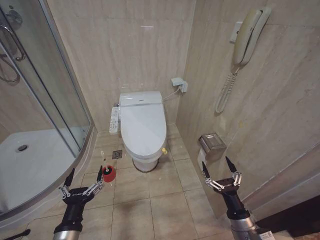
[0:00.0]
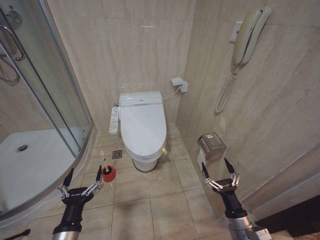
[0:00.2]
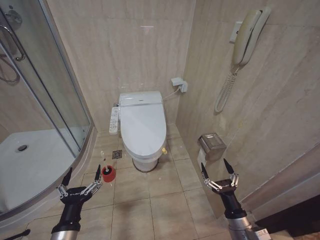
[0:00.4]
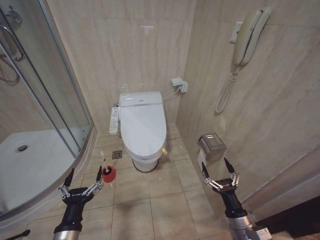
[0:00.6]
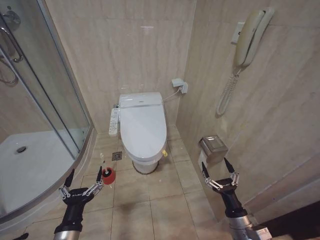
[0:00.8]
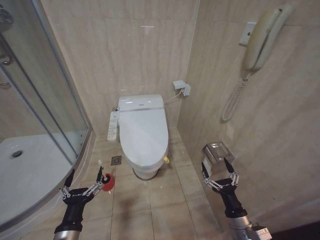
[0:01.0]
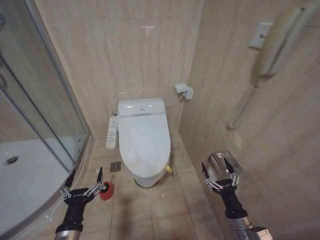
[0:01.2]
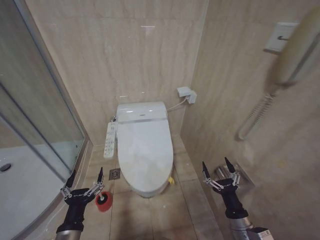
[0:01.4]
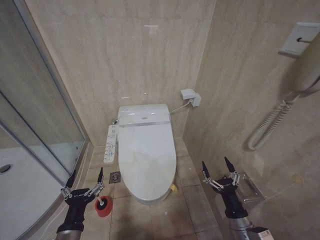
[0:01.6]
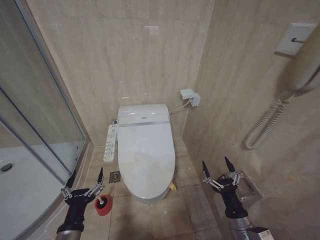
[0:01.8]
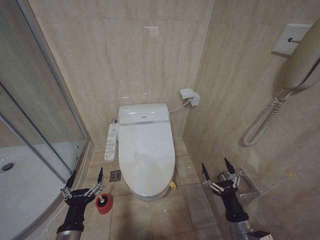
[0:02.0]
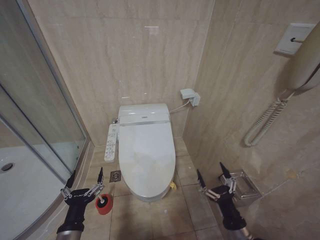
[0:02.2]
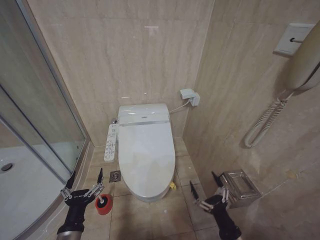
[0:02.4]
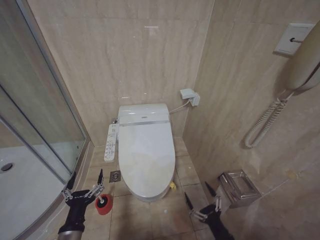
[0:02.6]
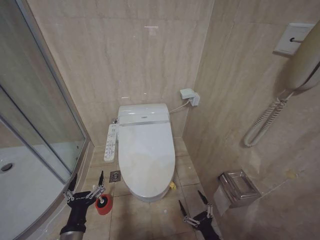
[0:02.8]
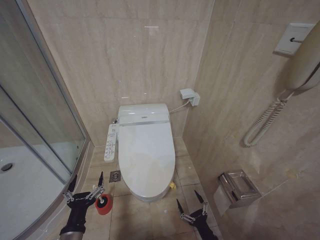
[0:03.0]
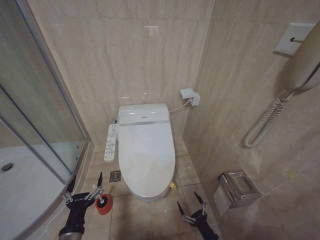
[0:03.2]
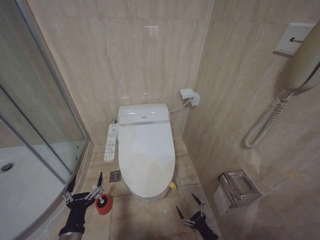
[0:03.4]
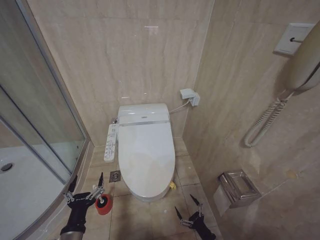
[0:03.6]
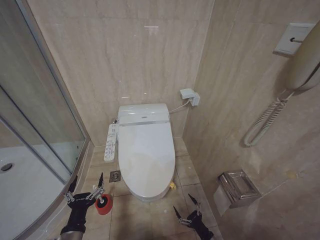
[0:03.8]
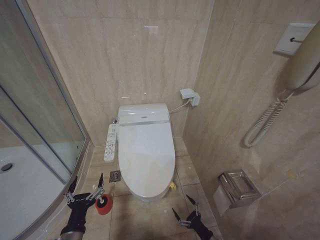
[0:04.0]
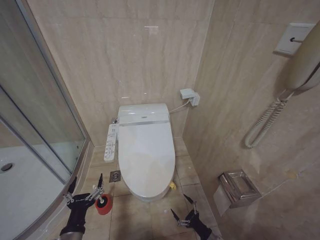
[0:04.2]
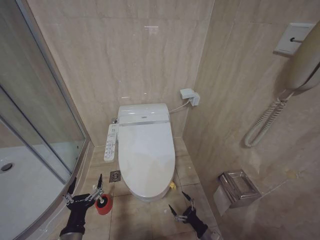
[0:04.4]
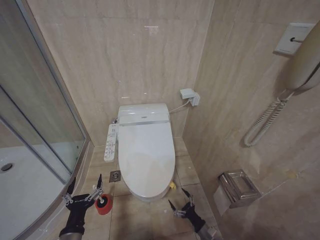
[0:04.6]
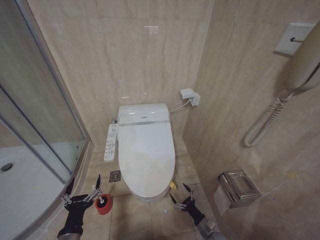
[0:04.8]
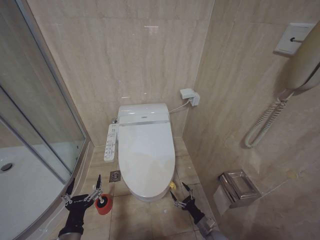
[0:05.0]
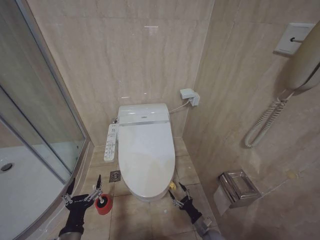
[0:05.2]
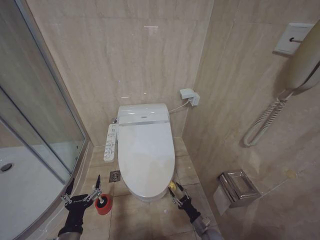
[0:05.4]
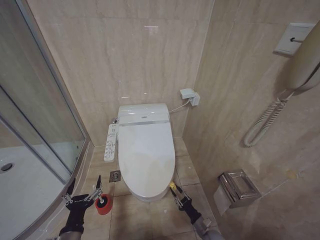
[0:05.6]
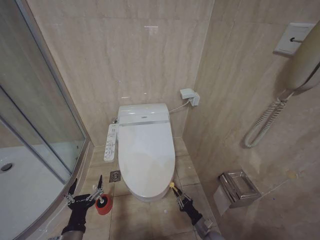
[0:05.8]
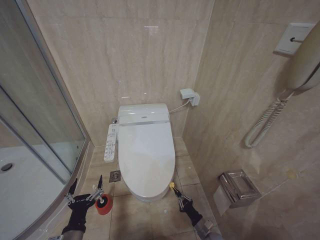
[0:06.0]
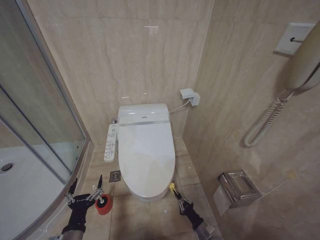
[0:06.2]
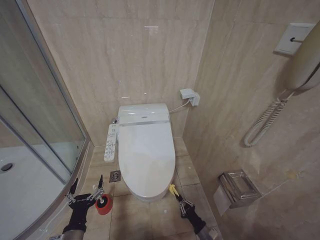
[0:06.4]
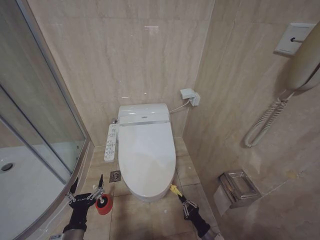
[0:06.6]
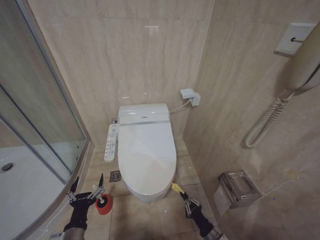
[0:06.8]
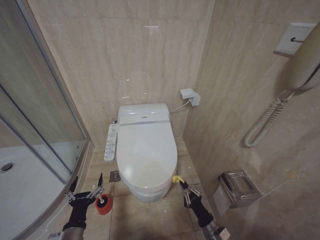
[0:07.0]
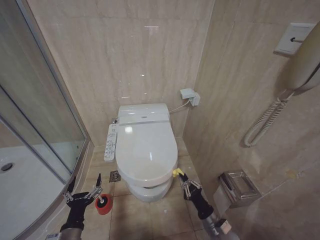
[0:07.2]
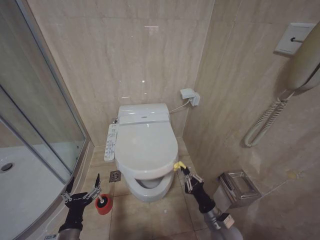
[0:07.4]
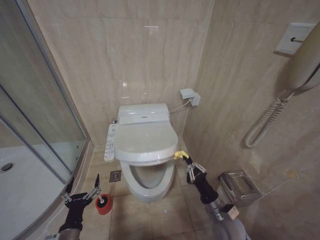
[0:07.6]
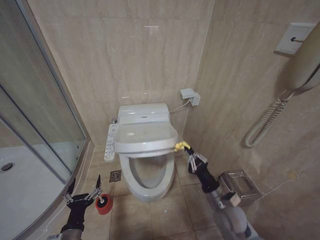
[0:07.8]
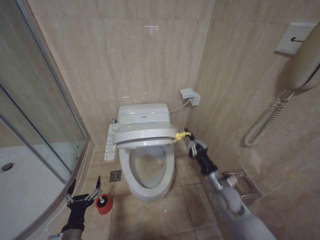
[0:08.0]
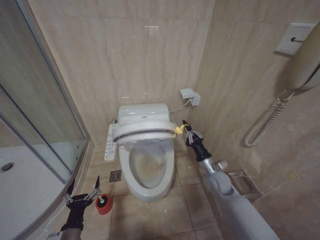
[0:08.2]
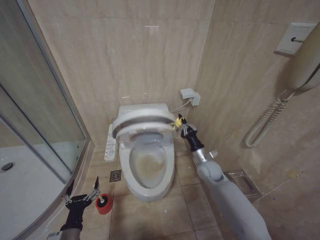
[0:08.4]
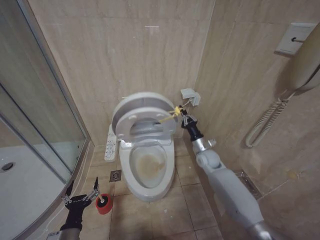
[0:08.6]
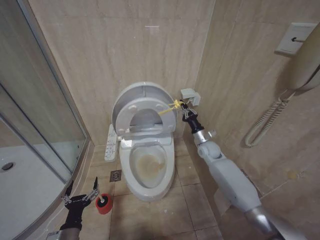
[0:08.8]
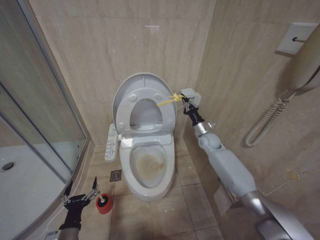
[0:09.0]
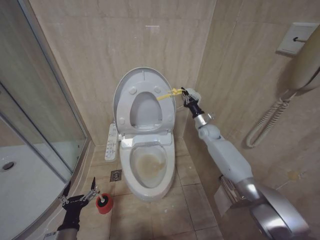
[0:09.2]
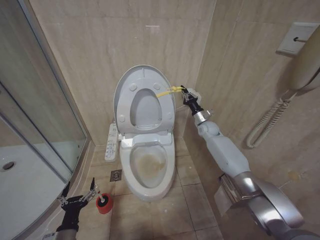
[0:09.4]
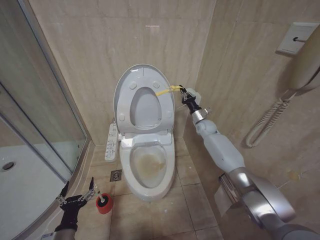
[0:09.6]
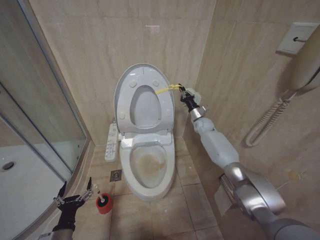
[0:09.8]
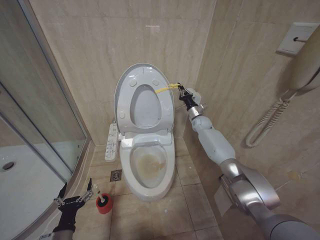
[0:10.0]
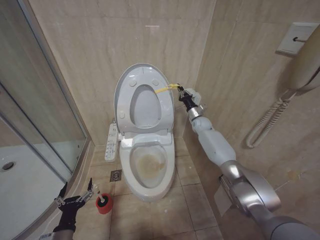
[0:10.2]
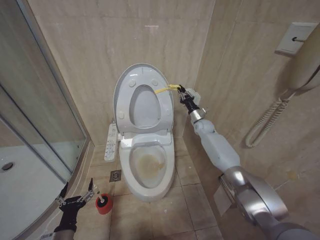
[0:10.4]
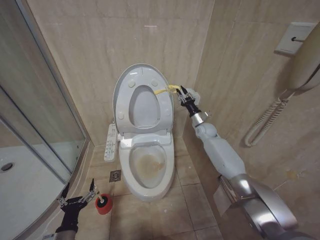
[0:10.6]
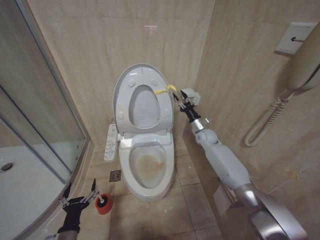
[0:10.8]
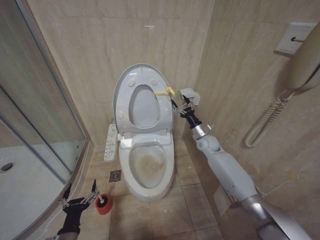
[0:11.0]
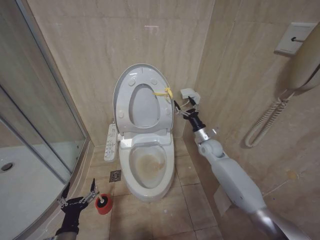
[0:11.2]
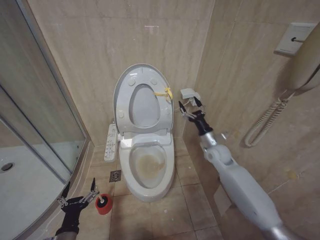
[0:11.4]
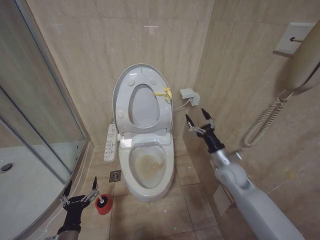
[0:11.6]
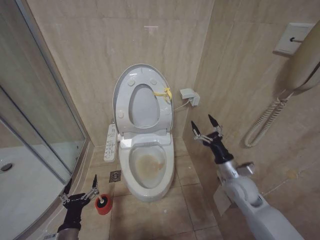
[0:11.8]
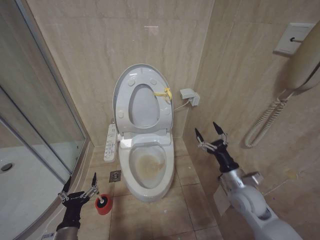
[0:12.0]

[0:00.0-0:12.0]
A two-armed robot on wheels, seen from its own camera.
Task of the whole recording: Open the toilet lid, clean the toilet bowl with a toilet brush, close the toilet lid, and flush.
0:01.6 to 0:03.0: The right gripper goes roughly 15 cm downward.
0:03.0 to 0:04.4: The right gripper heads downward and forward, covering approximately 10 cm.
0:06.0 to 0:07.6: The right gripper shifts roughly 25 cm upward.
0:07.6 to 0:09.0: The right gripper goes roughly 30 cm forward and upward.
0:09.0 to 0:10.4: The right gripper moves forward, some 10 cm.
0:10.4 to 0:12.0: The right gripper travels backward by approximately 35 cm, and opens its fingers.

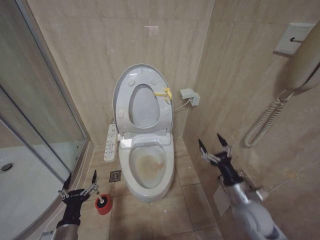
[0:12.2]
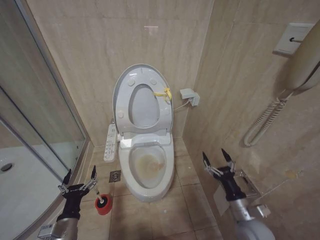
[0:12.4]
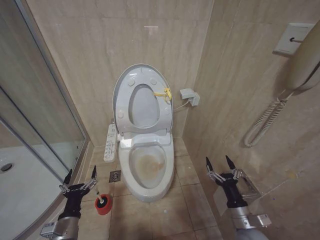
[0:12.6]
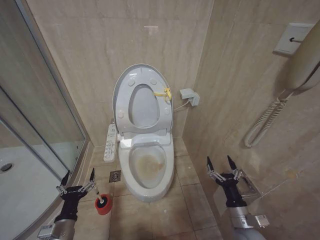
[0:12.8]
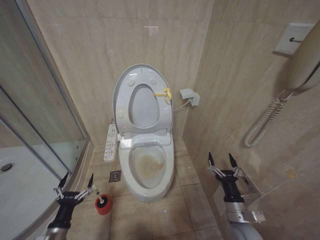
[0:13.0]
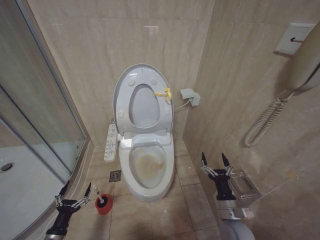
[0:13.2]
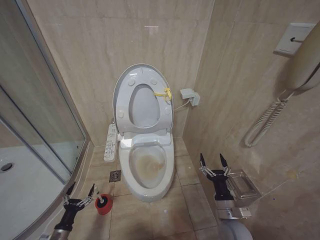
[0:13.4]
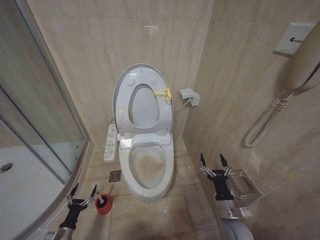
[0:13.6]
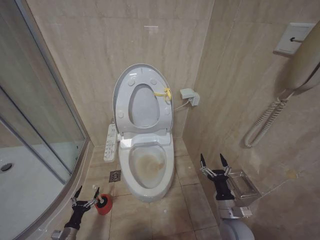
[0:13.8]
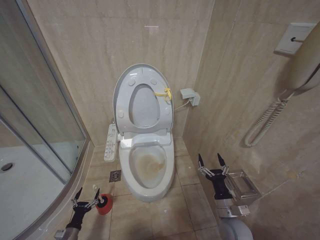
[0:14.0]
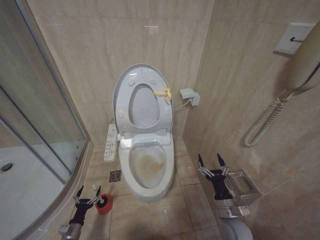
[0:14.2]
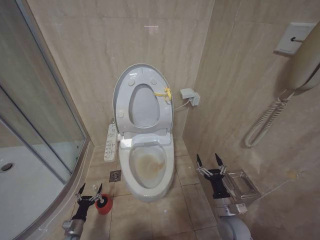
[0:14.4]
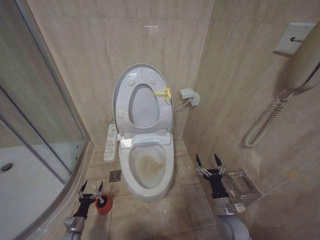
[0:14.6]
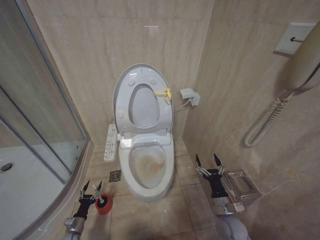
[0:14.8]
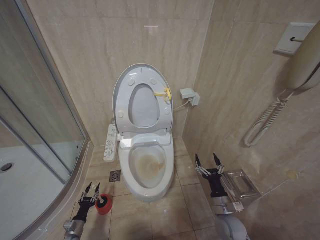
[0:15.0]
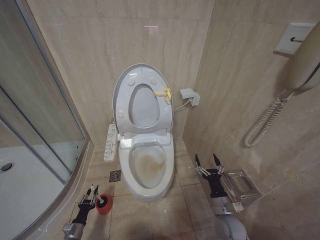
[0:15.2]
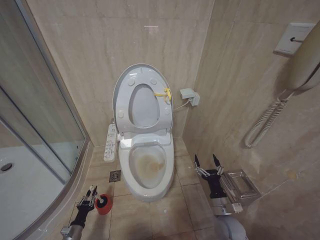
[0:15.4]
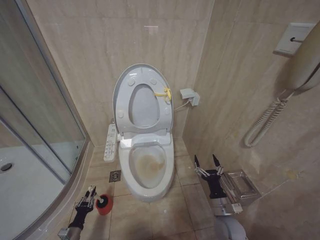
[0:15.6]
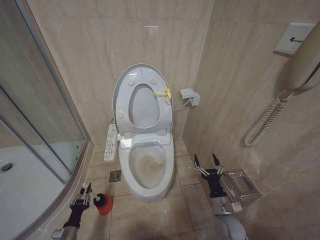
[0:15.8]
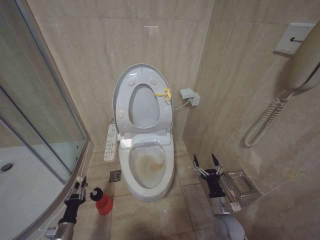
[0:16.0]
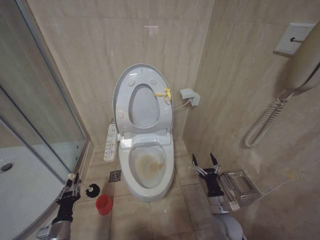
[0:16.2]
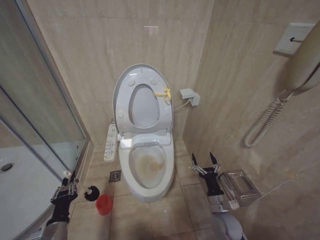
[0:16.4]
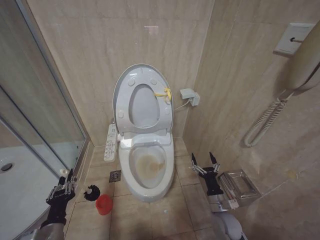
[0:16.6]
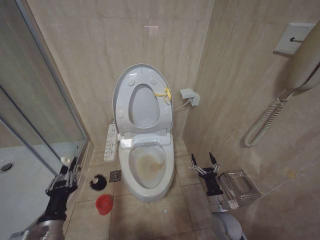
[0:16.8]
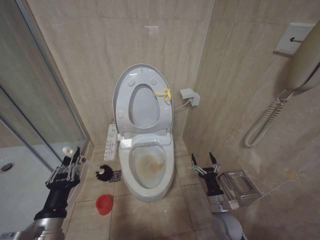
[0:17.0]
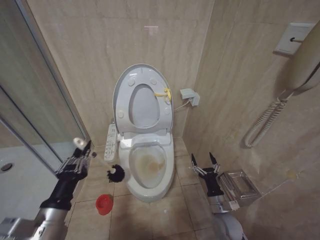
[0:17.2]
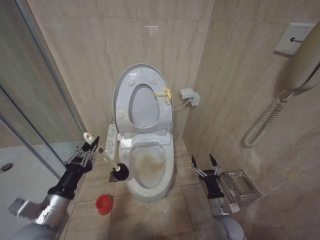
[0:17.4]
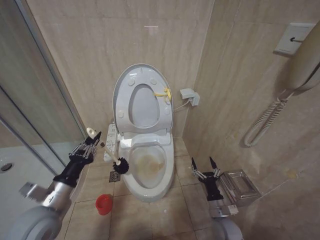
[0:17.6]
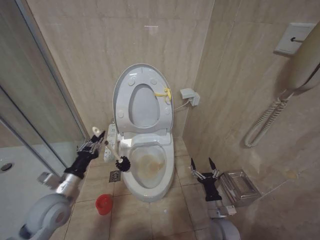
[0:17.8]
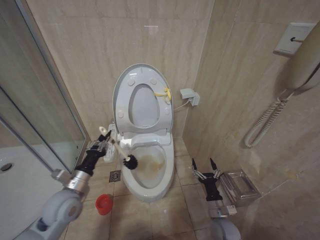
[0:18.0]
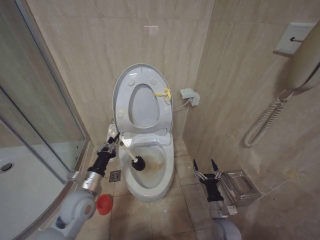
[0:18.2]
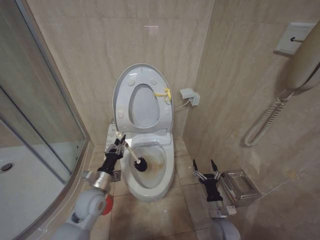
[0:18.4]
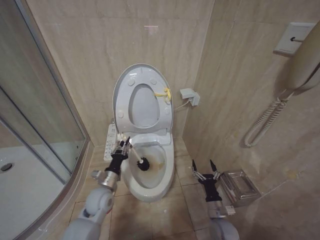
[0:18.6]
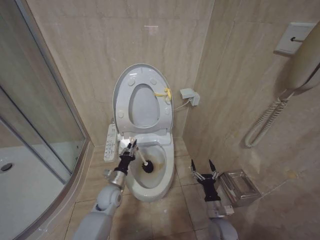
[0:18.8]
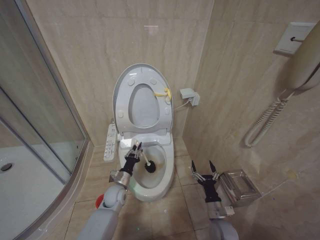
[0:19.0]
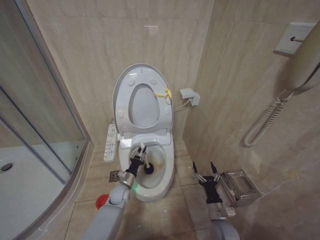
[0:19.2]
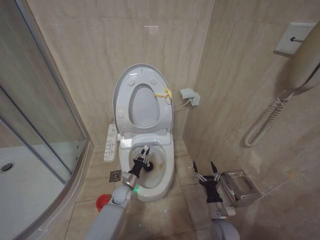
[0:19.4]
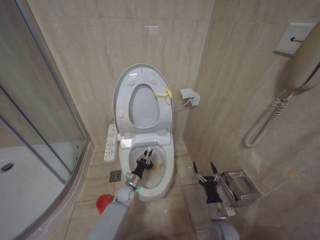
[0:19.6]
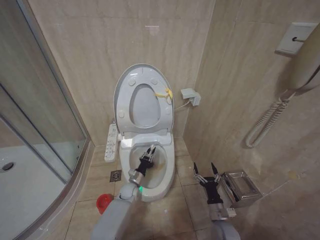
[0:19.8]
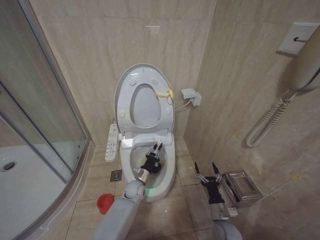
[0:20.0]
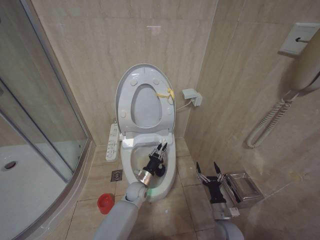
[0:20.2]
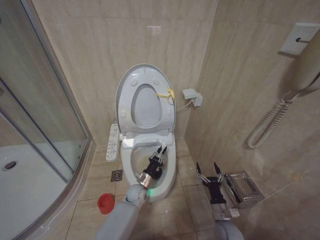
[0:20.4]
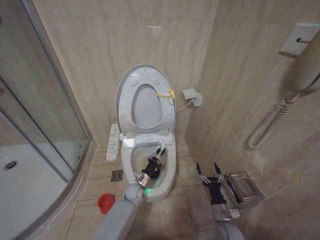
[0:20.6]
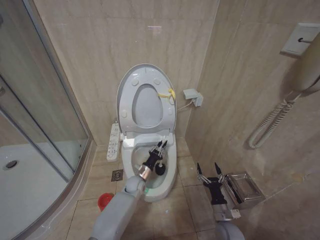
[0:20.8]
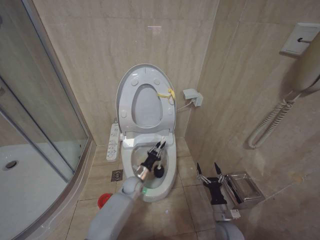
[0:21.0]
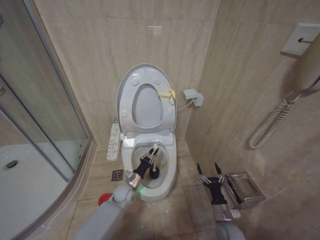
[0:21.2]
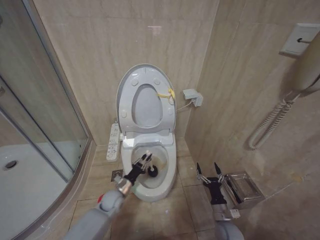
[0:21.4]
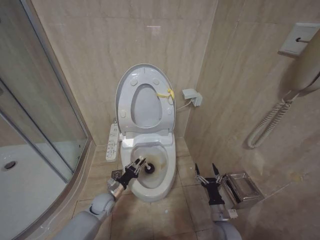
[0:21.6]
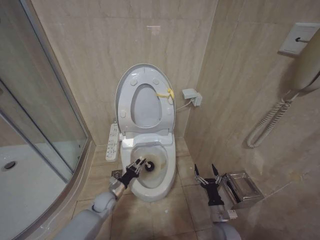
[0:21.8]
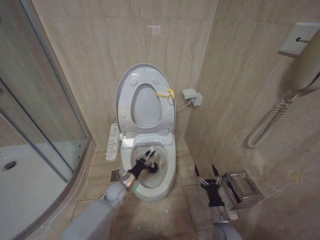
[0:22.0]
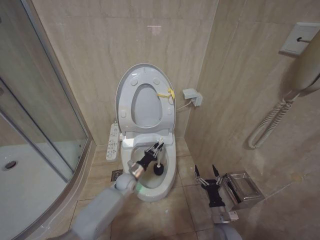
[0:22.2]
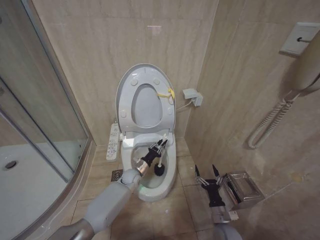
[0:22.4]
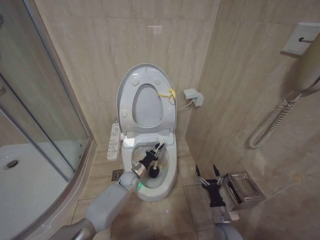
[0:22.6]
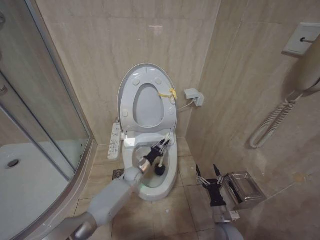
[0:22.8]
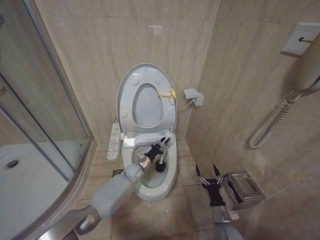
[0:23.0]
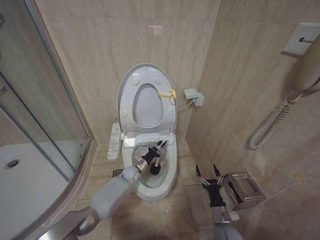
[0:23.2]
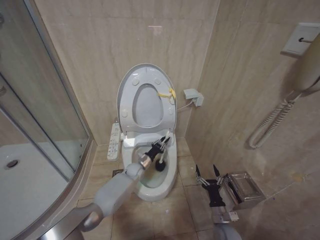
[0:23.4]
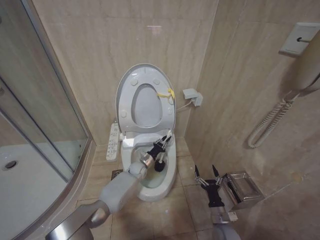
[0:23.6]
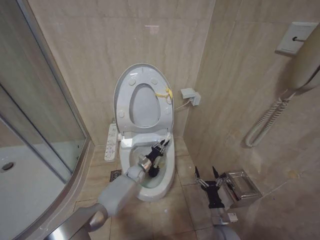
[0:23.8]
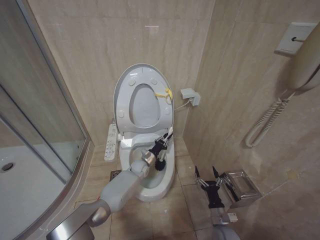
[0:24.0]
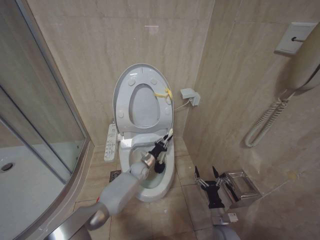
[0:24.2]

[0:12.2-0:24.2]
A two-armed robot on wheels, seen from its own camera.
Task of the whole recording: Open the toilet lid, clean the toilet bowl with a toilet brush, close the toilet lid, and flush.
0:12.2 to 0:13.8: The left gripper is displaced downward and to the left by about 25 cm, while the right gripper travels downward by approximately 10 cm.
0:13.8 to 0:15.2: The left gripper closes.
0:15.2 to 0:16.6: The left gripper shifts about 25 cm upward, and closes.
0:16.6 to 0:18.2: The left gripper heads forward, upward and to the right, covering roughly 15 cm.
0:18.2 to 0:19.8: The left gripper heads downward, forward and to the right, covering roughly 30 cm.
0:19.8 to 0:21.2: The left gripper swings up and down, roughly 5 cm each way, with 2 reversals.
0:21.2 to 0:22.6: The left gripper is displaced forward by some 5 cm, and travels to the left and back again, some 10 cm each way.
0:22.6 to 0:24.2: The left gripper goes some 5 cm to the right.
